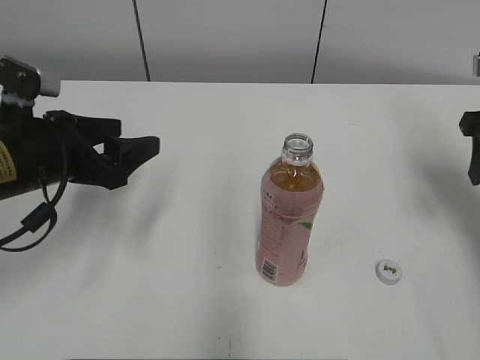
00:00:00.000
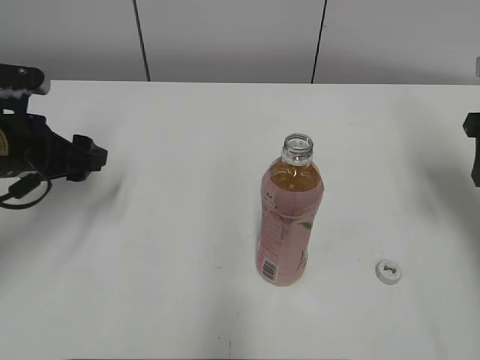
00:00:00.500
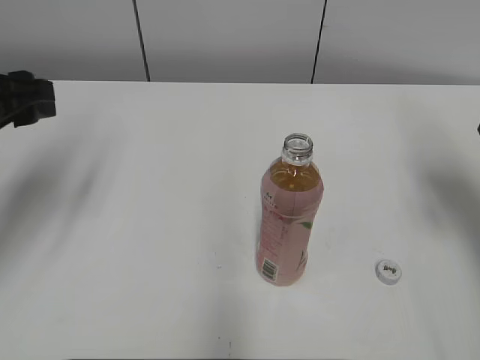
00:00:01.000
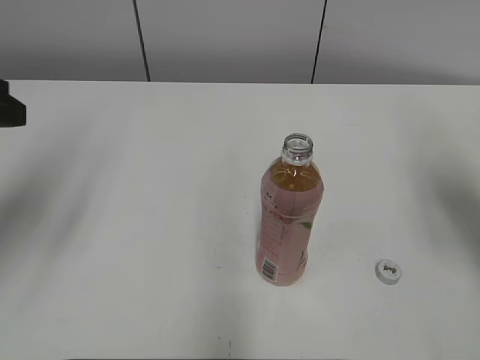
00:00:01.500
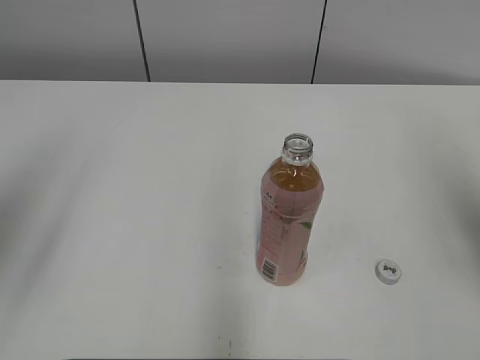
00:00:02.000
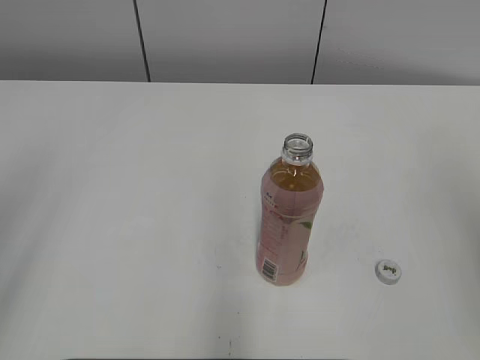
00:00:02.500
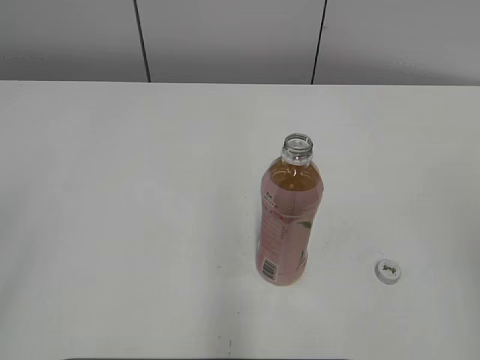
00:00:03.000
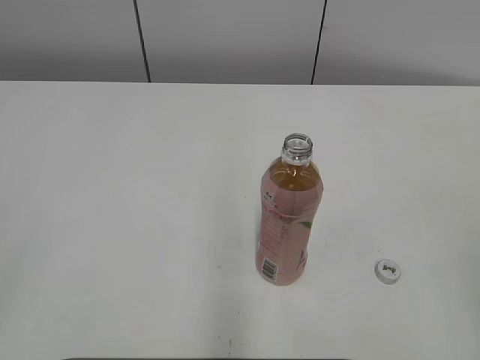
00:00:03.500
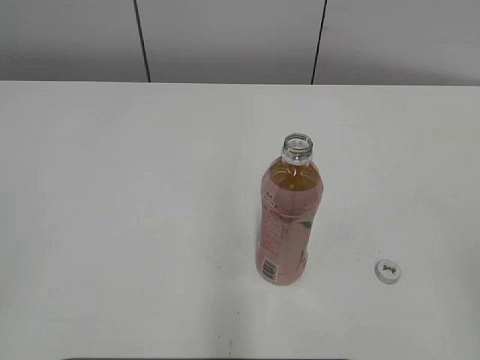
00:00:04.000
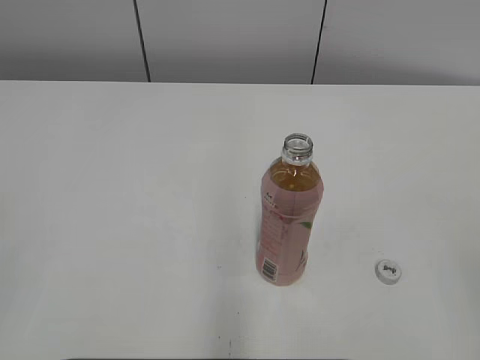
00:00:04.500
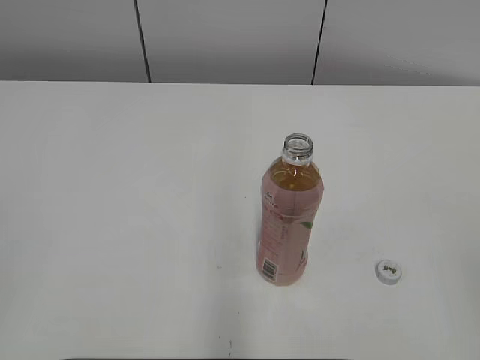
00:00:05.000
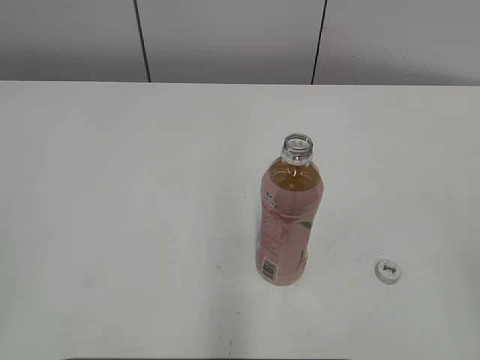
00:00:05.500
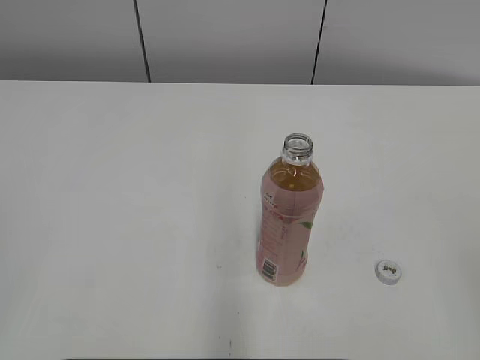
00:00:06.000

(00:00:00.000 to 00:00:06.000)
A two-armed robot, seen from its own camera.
00:00:00.000 - 00:00:02.000: The right gripper shifts some 15 cm backward and upward. The left gripper shifts about 20 cm upward, backward and to the left.
00:00:02.000 - 00:00:04.000: Both grippers move backward, some 20 cm. The right gripper closes.
